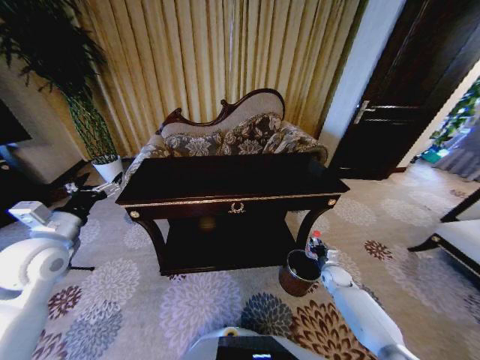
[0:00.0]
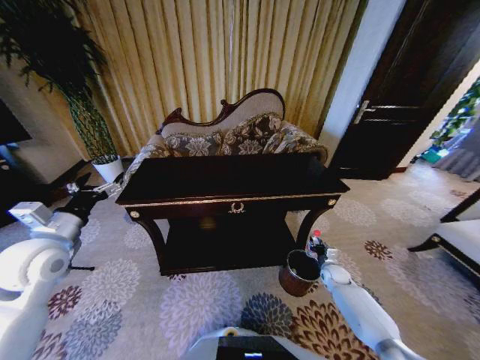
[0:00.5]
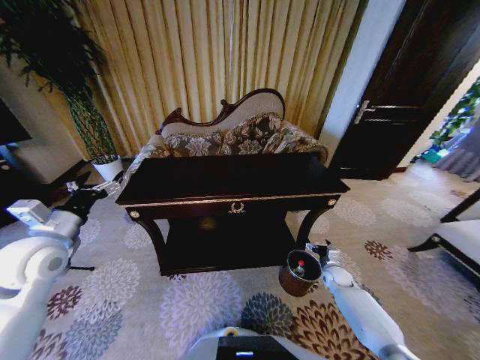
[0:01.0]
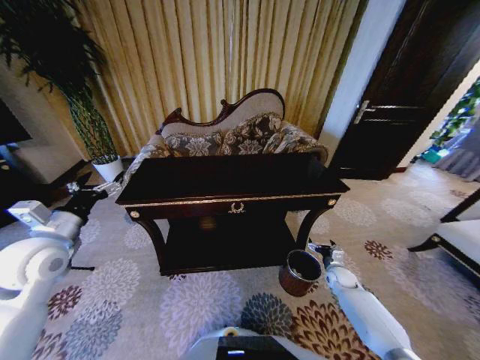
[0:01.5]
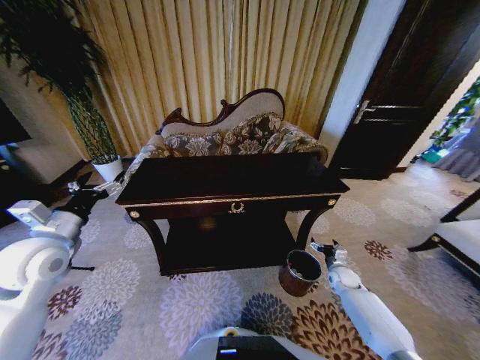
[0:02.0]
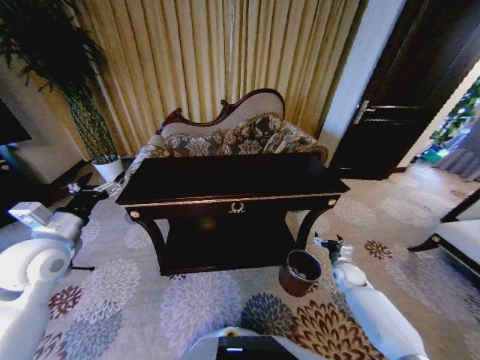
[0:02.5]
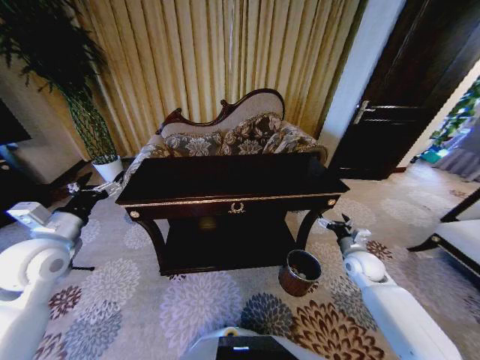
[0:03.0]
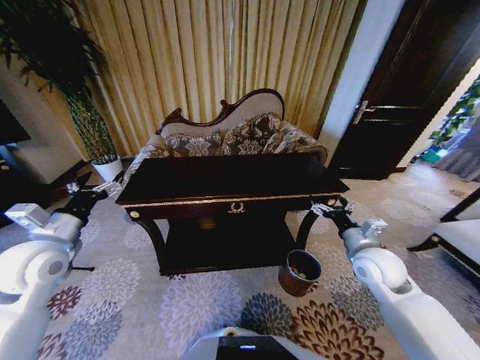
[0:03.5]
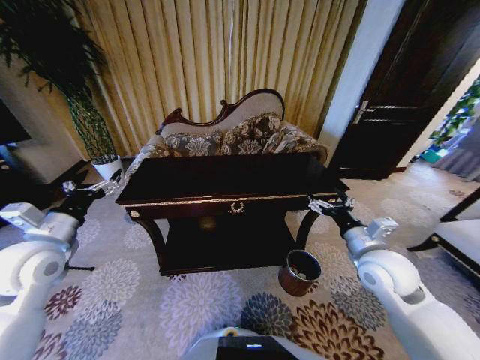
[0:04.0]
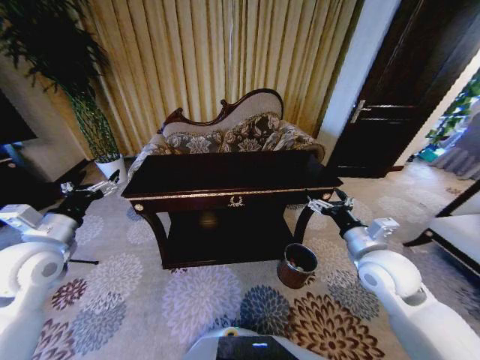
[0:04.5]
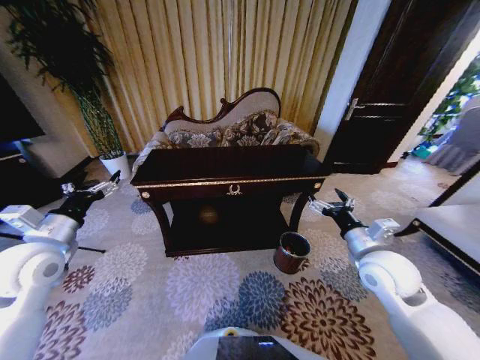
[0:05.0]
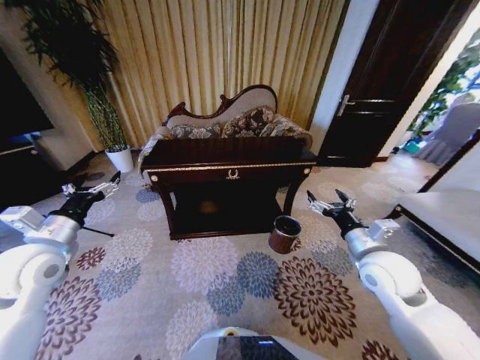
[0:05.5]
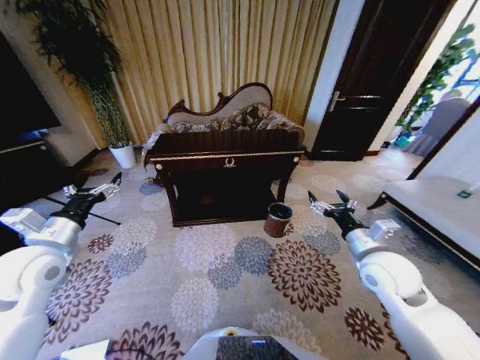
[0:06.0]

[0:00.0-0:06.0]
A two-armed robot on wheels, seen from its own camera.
Task of the whole recording: Move to the front of the table and place the trash on the table into the trash bin.
0:00.0 to 0:02.0: The right gripper opens its fingers.
0:02.0 to 0:04.0: The right gripper heads upward, covering about 30 cm.
